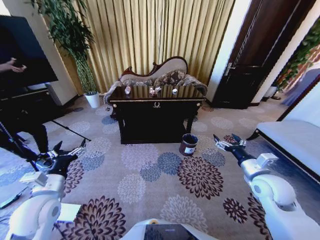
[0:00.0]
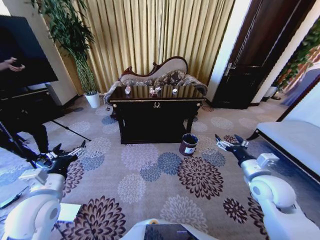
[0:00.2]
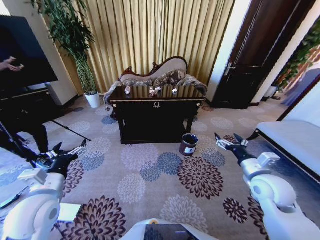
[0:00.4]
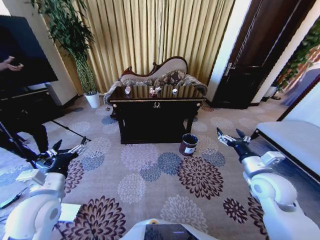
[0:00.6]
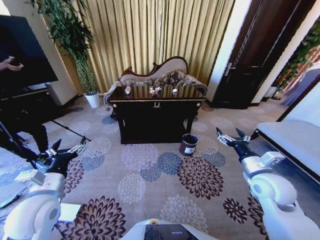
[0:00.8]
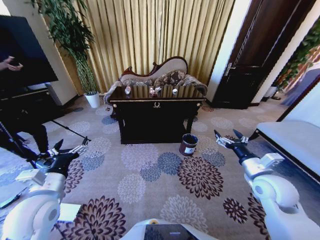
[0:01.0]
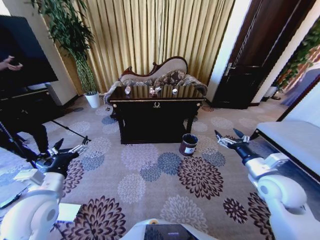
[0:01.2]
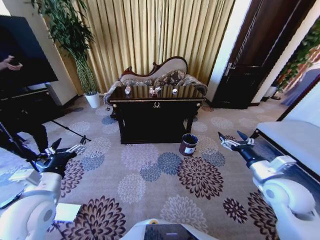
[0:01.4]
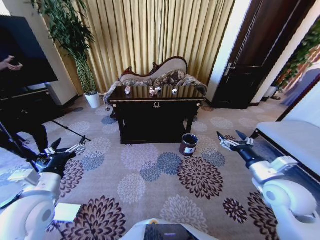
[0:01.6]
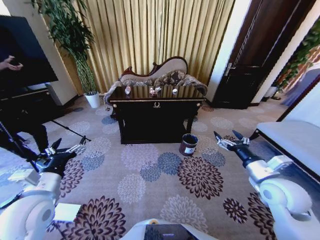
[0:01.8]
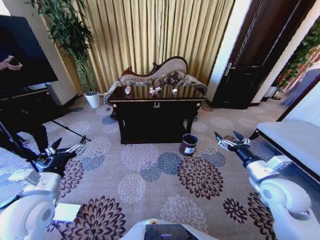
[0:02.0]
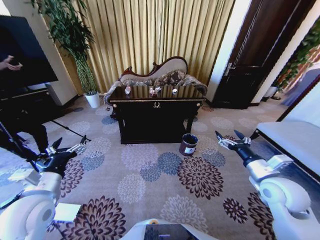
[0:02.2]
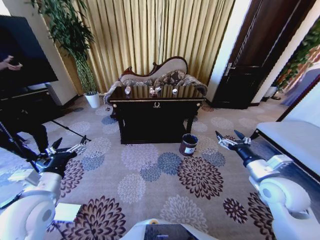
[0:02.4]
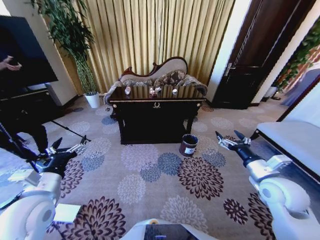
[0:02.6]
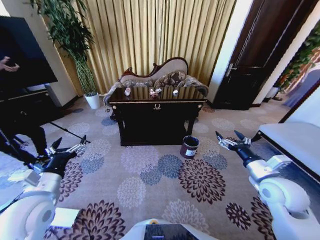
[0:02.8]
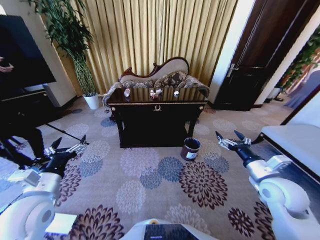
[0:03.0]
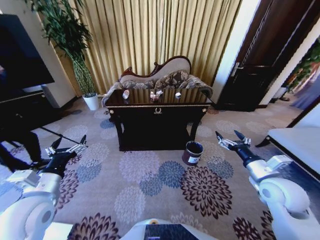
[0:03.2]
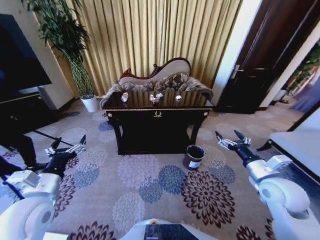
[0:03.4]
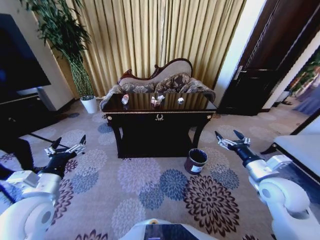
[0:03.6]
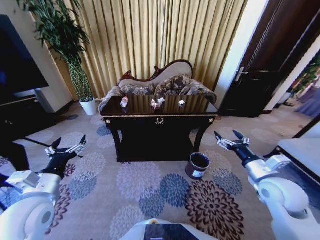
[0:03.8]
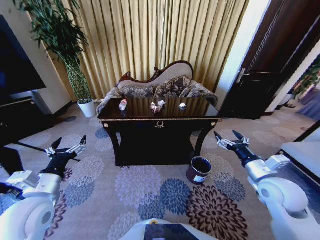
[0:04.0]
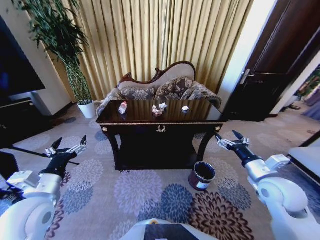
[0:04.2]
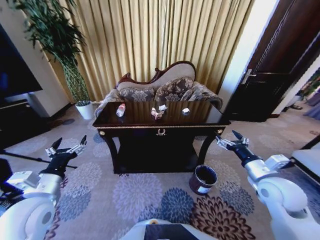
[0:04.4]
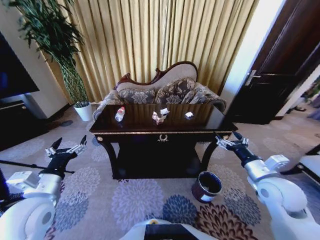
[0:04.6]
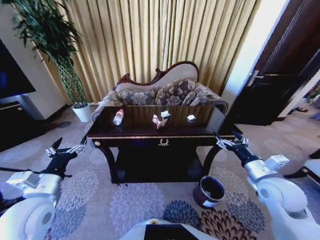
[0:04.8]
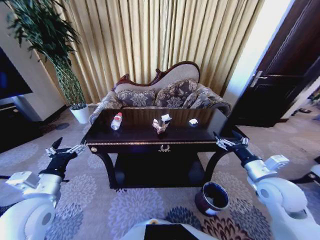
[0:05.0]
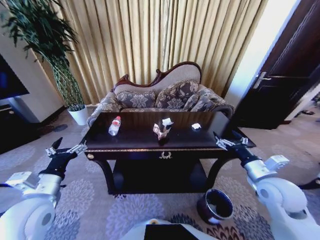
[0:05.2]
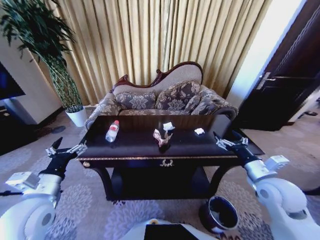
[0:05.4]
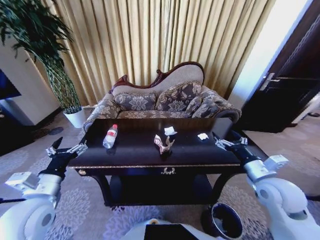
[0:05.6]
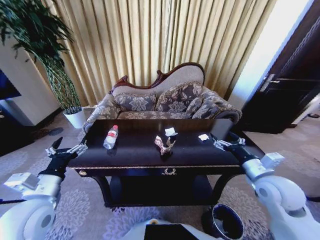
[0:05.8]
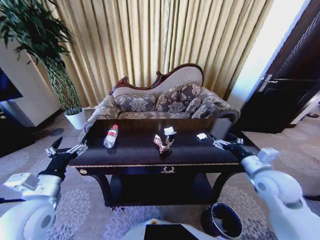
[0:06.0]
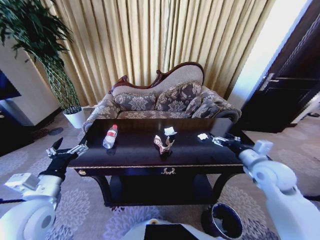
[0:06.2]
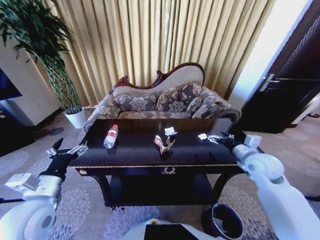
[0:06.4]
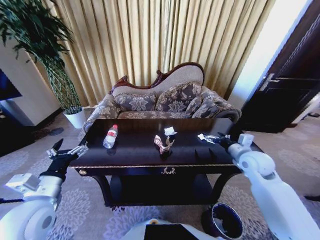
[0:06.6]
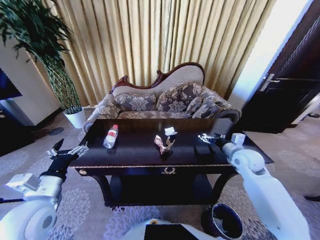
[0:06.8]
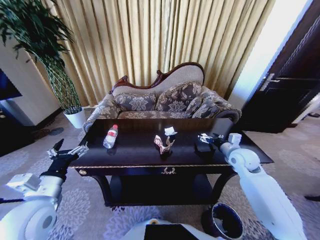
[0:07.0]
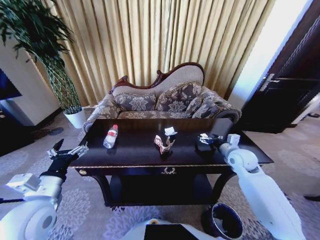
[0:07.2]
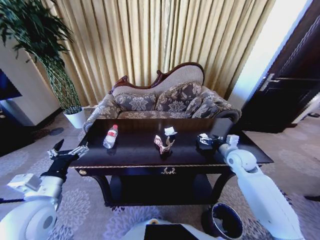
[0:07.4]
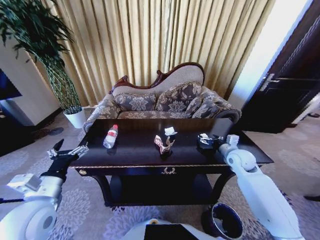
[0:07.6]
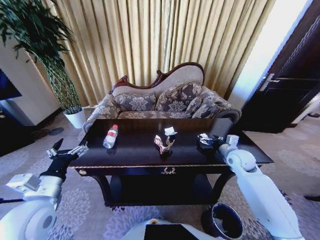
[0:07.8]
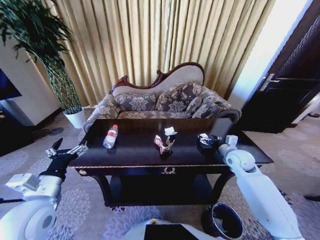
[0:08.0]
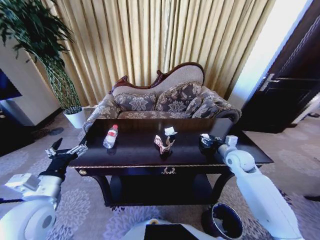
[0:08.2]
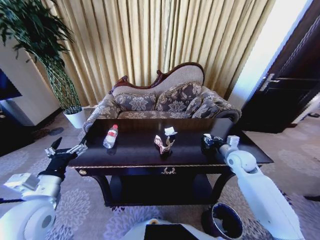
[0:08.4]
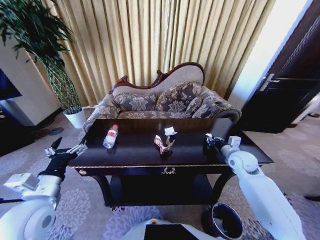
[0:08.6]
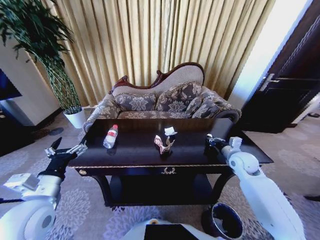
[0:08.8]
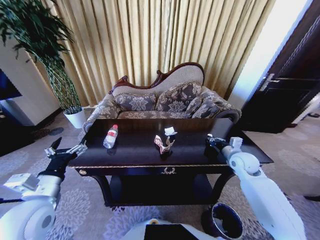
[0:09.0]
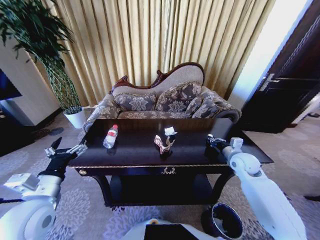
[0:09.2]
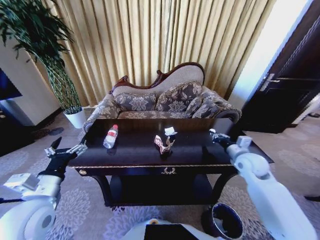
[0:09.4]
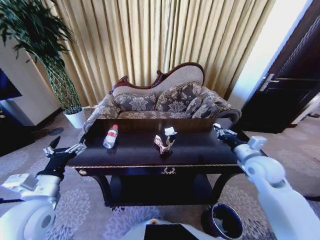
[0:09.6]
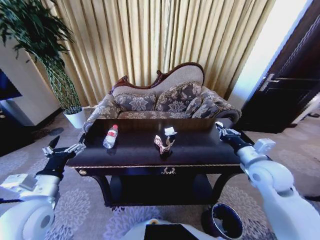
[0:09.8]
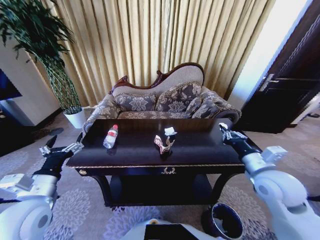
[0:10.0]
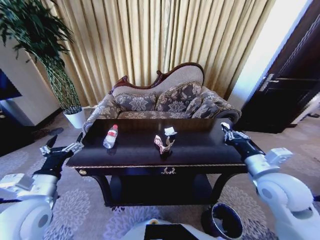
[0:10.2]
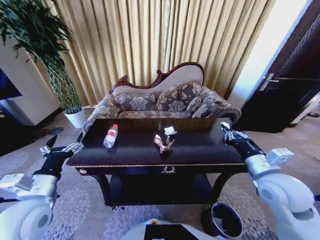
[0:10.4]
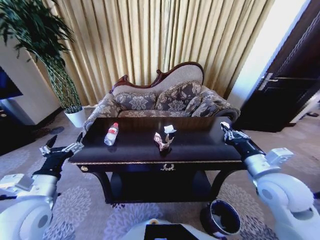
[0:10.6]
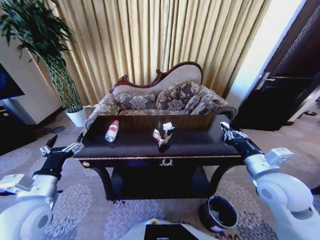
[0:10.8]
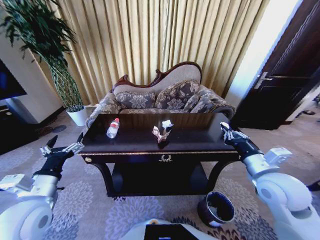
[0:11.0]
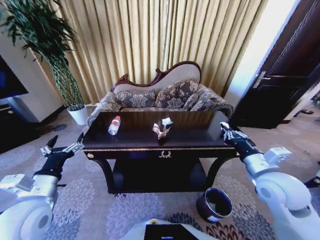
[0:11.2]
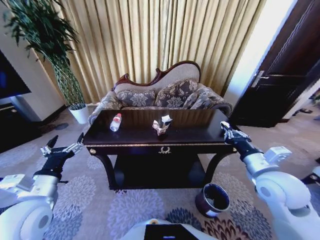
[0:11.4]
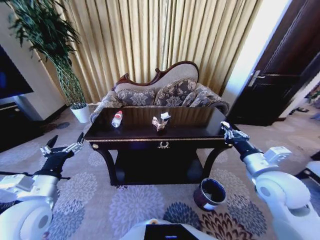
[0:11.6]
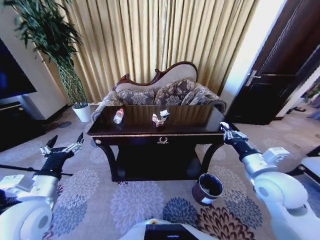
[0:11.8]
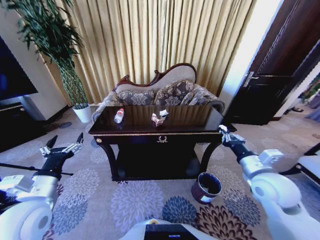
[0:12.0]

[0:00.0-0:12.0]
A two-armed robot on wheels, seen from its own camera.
Task of the whole recording: Move to the front of the table and place the trash on the table into the trash bin.
0:06.0 to 0:07.6: The right gripper is displaced forward and downward by some 15 cm.
0:07.6 to 0:09.0: The right gripper closes.
0:09.0 to 0:10.4: The right gripper travels backward and upward by roughly 15 cm.

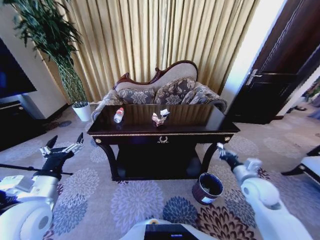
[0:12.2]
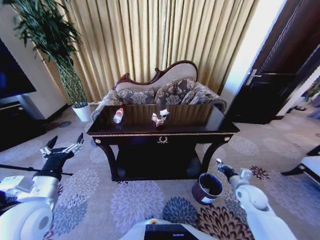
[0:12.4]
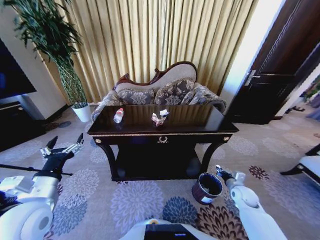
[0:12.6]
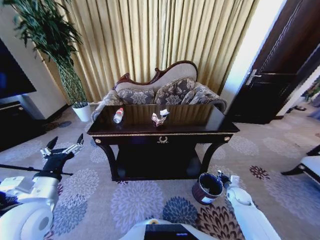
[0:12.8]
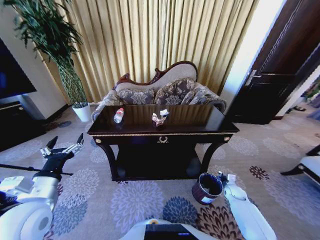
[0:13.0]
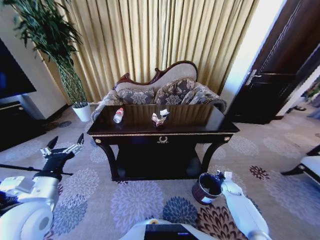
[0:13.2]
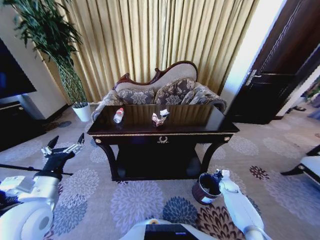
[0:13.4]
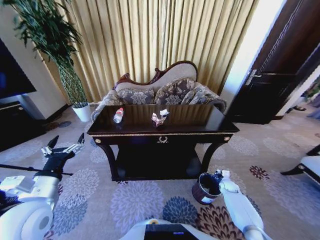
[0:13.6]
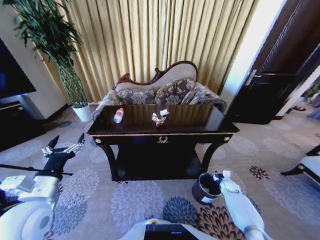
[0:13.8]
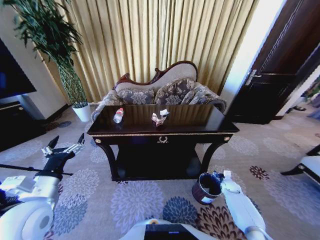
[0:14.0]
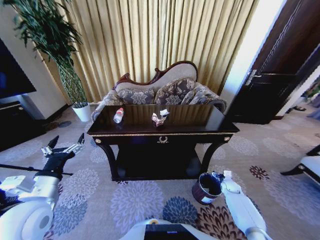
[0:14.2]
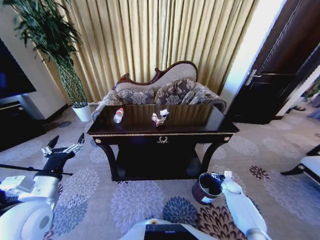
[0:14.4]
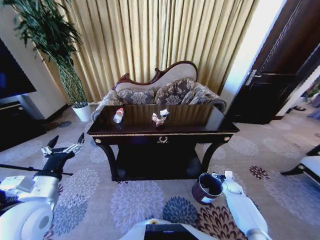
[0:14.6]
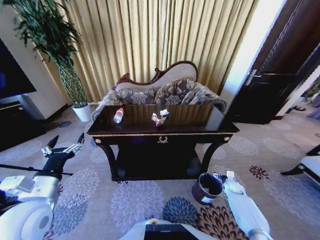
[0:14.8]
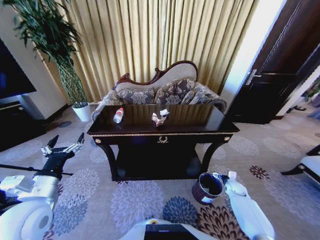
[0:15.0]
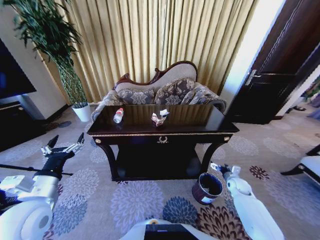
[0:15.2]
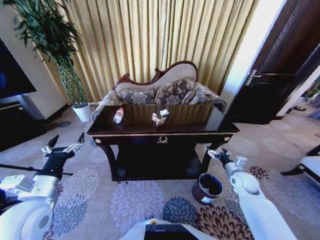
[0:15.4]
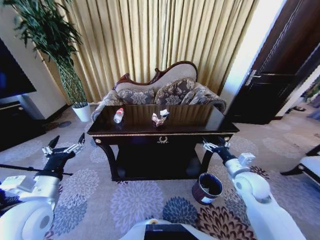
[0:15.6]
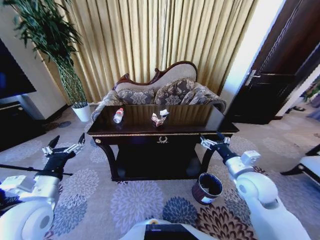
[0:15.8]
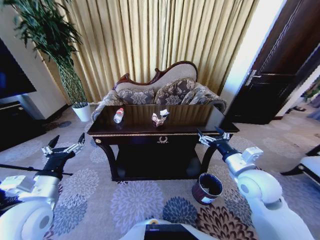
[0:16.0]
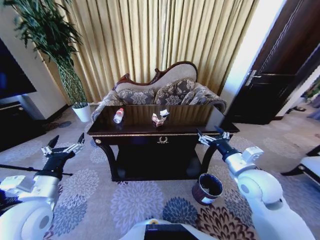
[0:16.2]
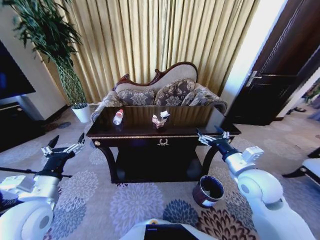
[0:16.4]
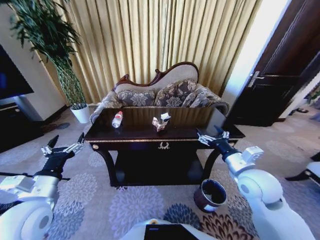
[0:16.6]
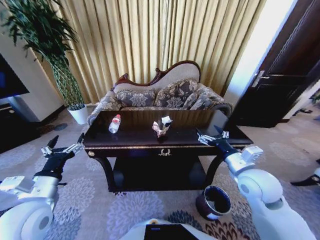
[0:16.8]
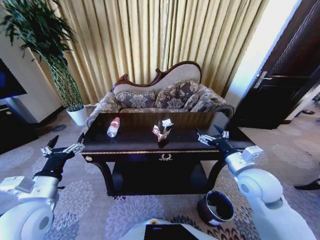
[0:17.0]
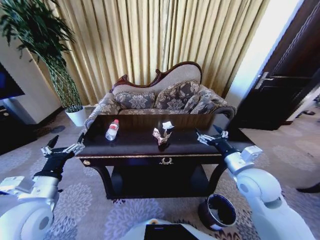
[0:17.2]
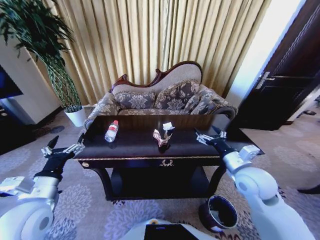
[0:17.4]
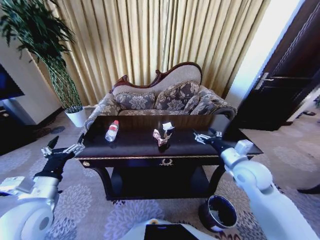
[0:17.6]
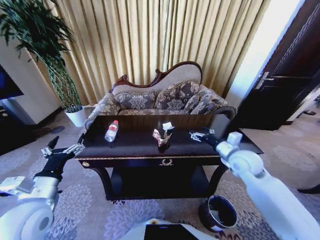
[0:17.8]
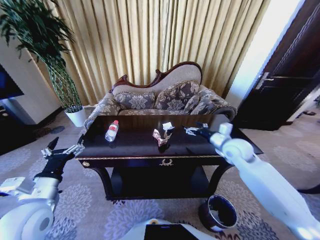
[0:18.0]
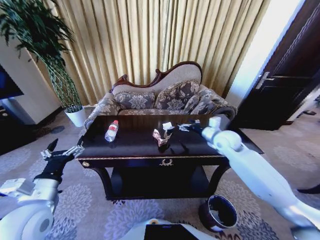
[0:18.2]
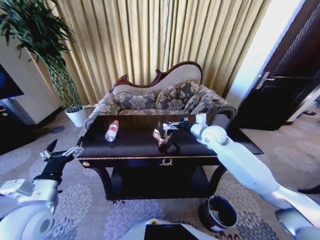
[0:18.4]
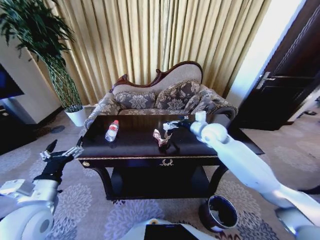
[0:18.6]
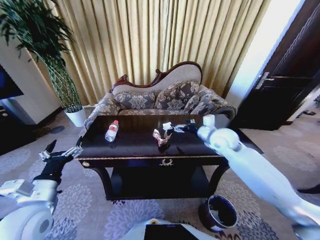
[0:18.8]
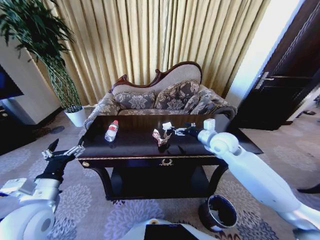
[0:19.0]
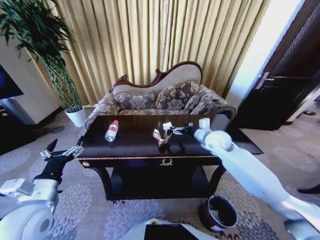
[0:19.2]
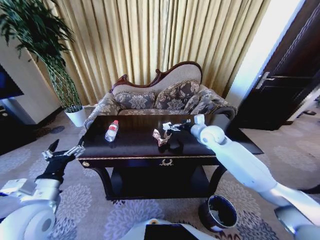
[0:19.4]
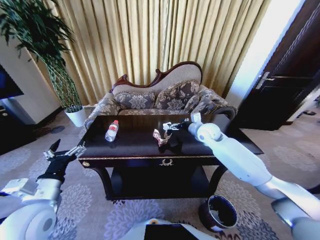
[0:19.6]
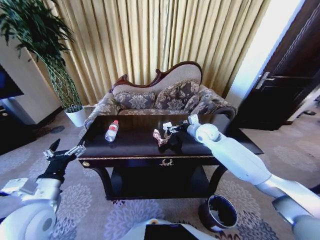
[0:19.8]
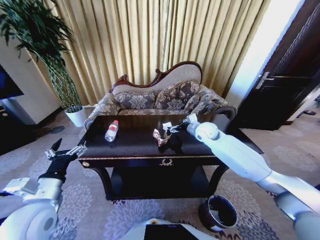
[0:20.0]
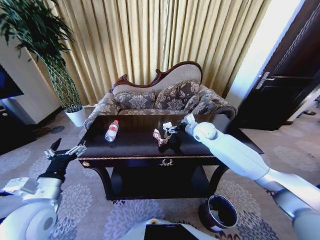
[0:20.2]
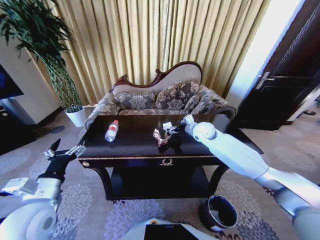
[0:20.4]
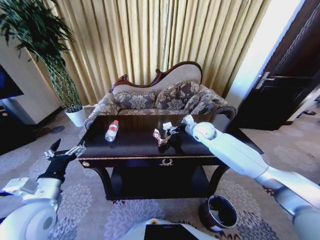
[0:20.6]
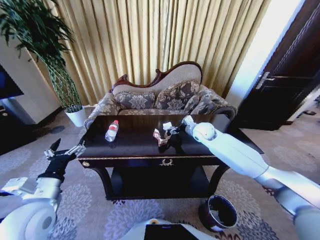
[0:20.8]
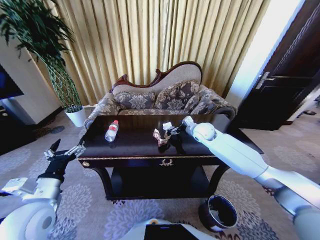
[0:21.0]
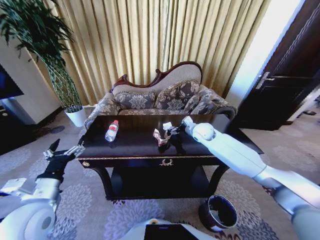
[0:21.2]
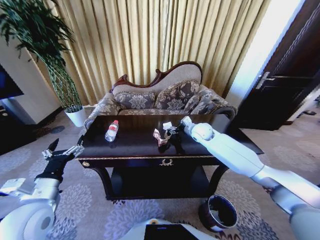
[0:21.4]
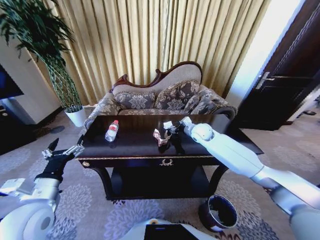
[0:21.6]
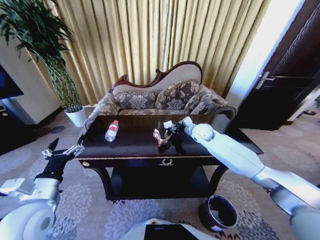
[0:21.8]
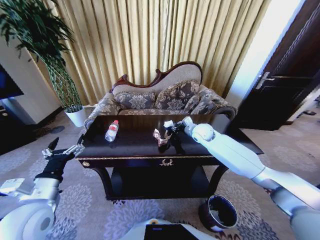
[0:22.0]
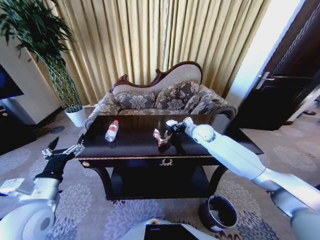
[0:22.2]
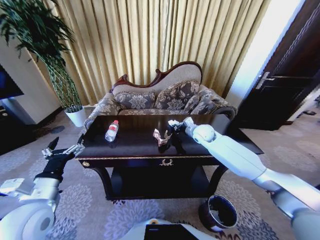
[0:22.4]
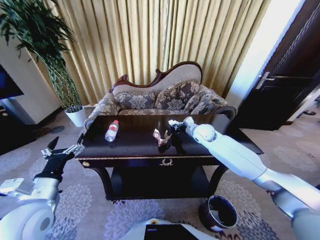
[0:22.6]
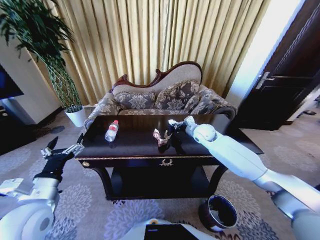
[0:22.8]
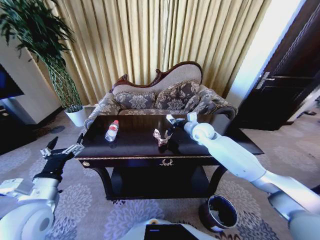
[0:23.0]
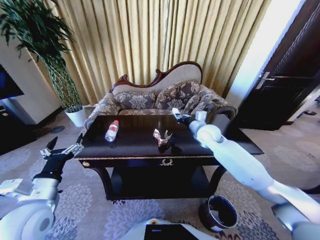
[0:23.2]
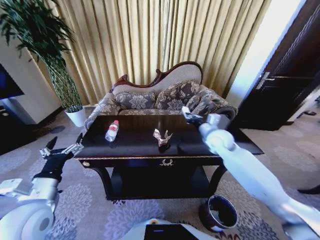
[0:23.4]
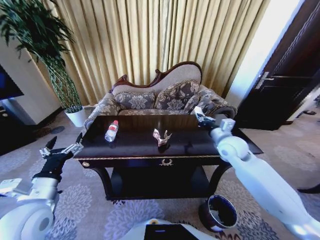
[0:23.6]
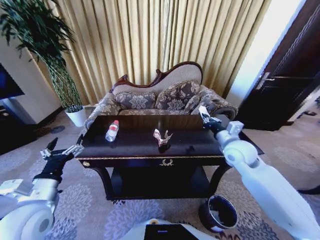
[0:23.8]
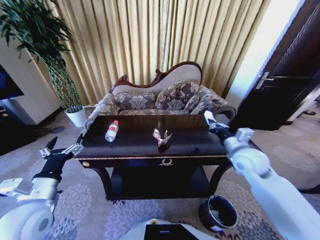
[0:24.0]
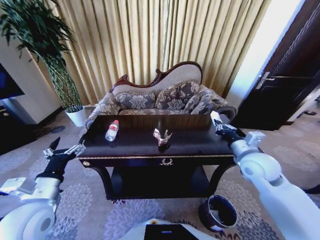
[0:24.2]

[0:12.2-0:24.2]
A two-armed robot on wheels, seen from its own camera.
Task of the whole recording: Move to the front of the table and place the trash on the table into the trash bin.
0:12.2 to 0:13.8: The right gripper shifts approximately 25 cm downward, and opens.
0:13.8 to 0:15.2: The right gripper is displaced upward by some 10 cm, and opens its fingers.
0:15.2 to 0:16.6: The right gripper travels upward and to the left by roughly 30 cm.
0:16.6 to 0:18.2: The right gripper moves forward, some 20 cm.
0:18.2 to 0:19.8: The right gripper goes some 10 cm forward and to the left.
0:19.8 to 0:21.2: The grippers stay close to where they were, moving slightly.
0:21.2 to 0:22.6: The right gripper closes up.
0:22.6 to 0:24.2: The right gripper travels backward and to the right by roughly 25 cm.
